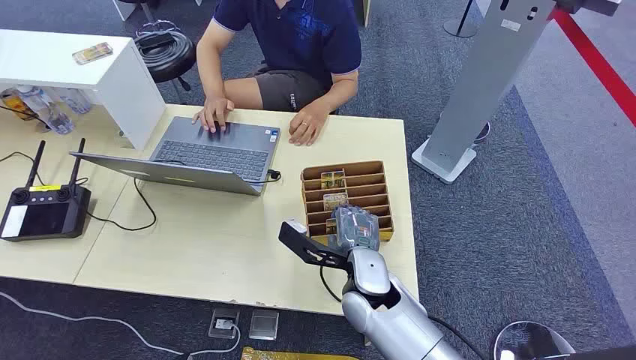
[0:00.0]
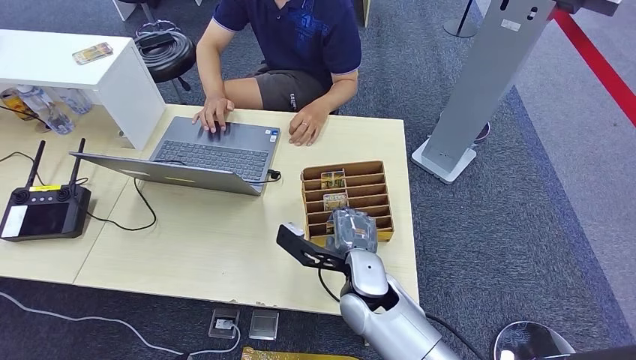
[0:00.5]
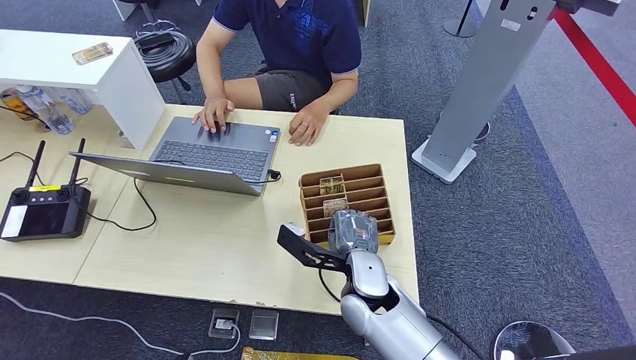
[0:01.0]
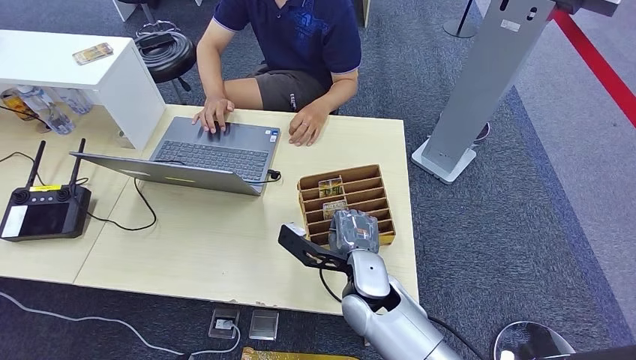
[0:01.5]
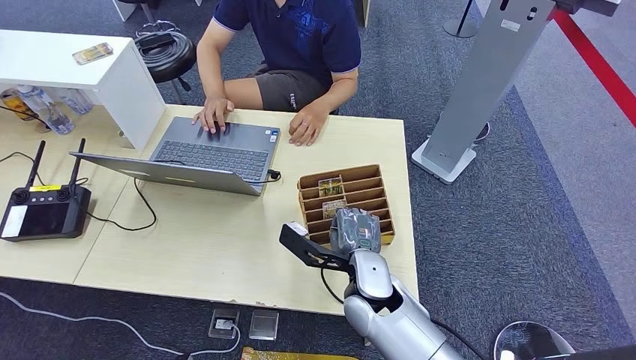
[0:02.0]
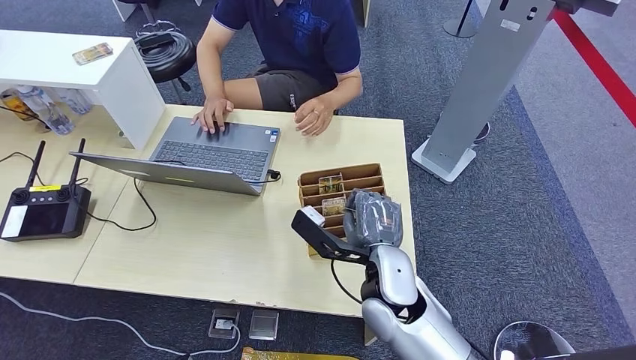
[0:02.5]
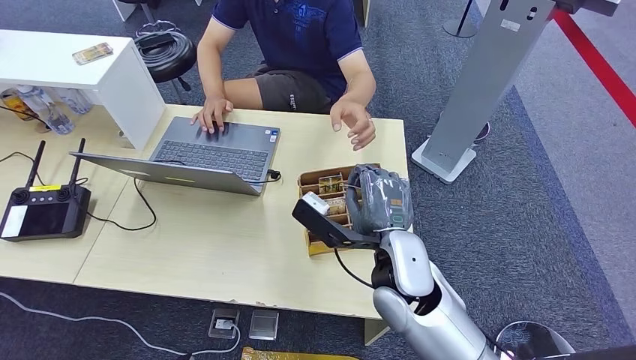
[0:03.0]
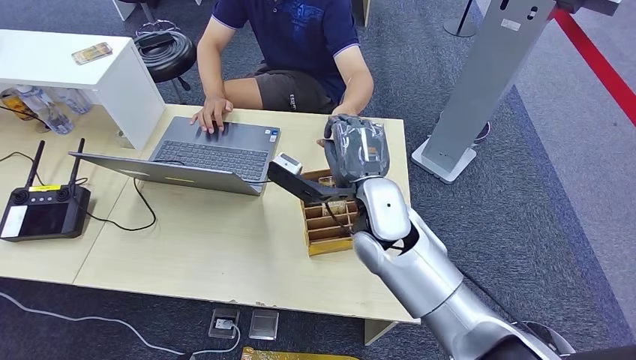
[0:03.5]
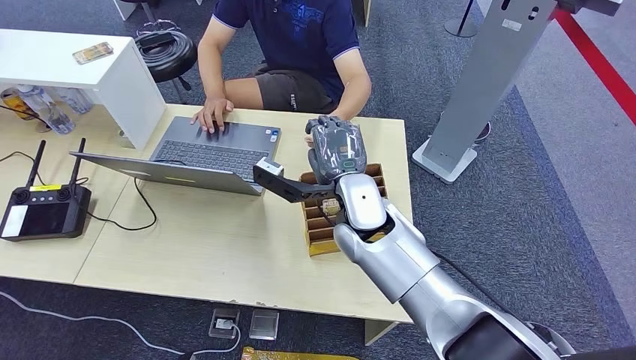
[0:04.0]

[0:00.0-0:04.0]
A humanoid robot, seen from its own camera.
Step, 0:00.0 to 0:02.0: Pick up the room card from the card holder.
Step, 0:03.0 to 0:04.0: Hand the room card to the target.
0:02.0 to 0:04.0: The right hand moves upward and forward, roughly 15 cm.
